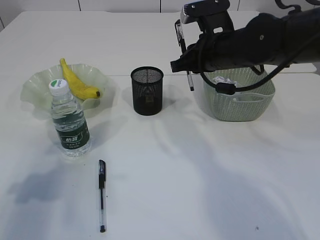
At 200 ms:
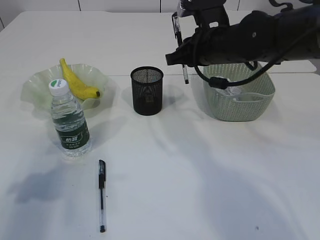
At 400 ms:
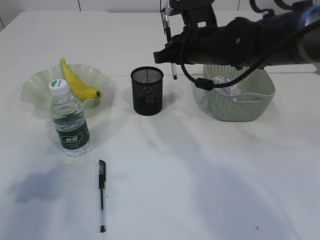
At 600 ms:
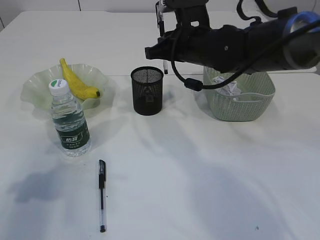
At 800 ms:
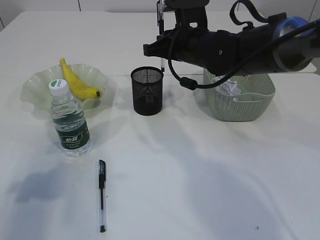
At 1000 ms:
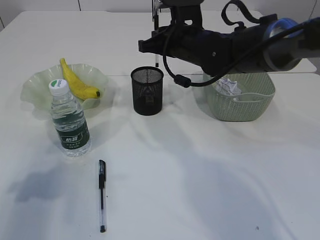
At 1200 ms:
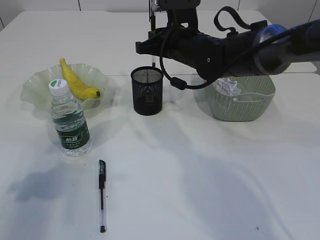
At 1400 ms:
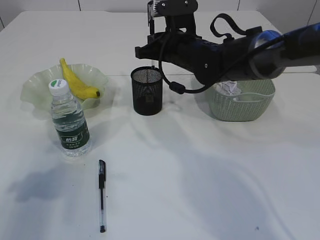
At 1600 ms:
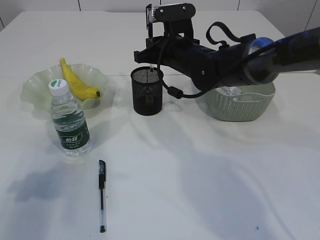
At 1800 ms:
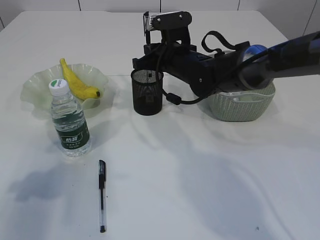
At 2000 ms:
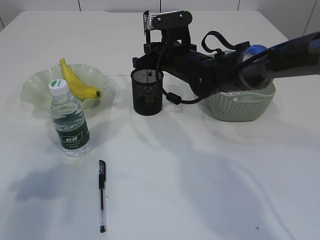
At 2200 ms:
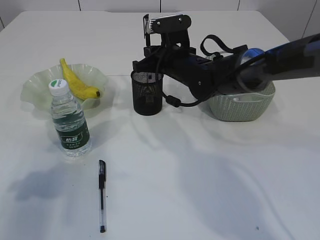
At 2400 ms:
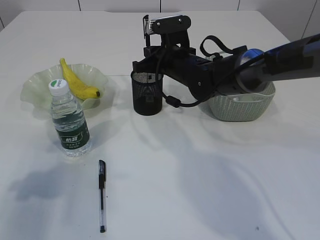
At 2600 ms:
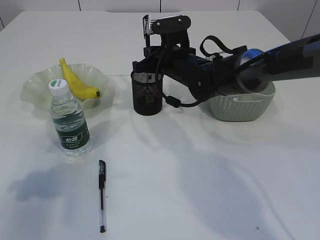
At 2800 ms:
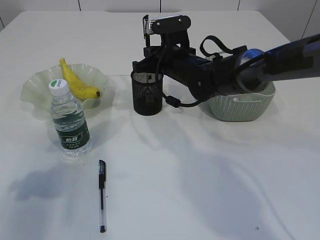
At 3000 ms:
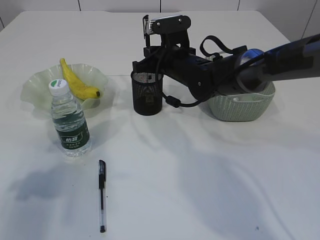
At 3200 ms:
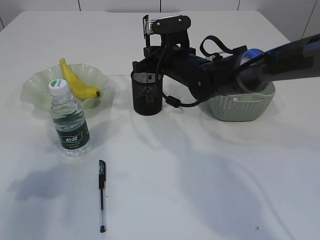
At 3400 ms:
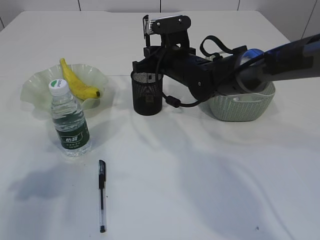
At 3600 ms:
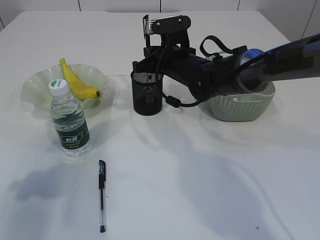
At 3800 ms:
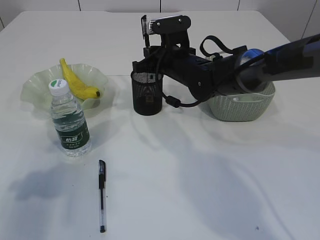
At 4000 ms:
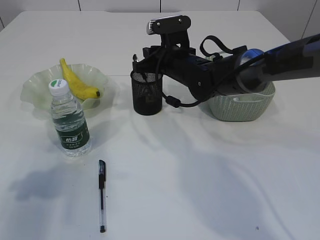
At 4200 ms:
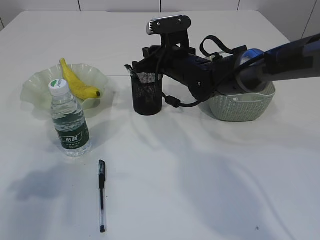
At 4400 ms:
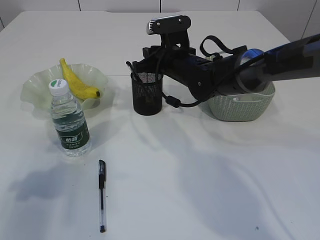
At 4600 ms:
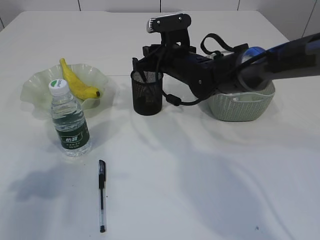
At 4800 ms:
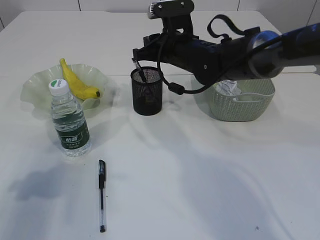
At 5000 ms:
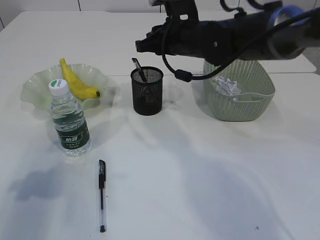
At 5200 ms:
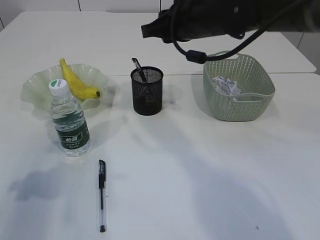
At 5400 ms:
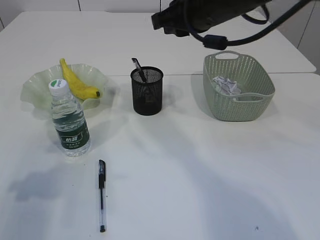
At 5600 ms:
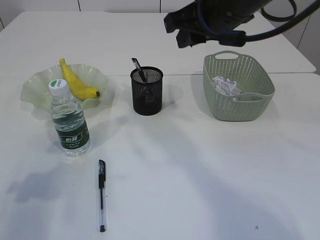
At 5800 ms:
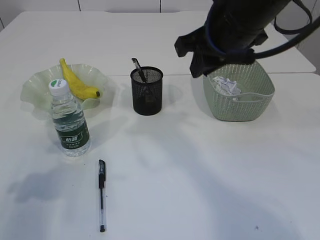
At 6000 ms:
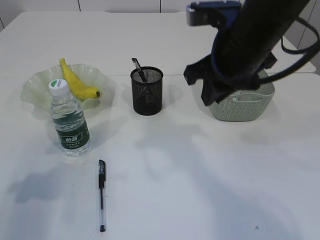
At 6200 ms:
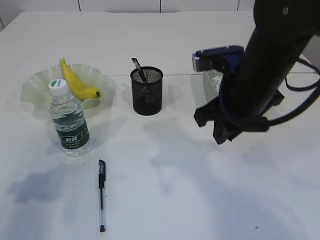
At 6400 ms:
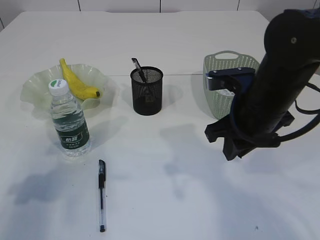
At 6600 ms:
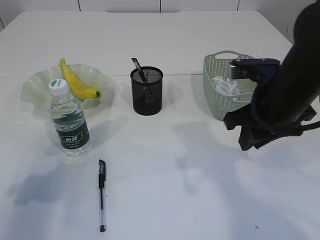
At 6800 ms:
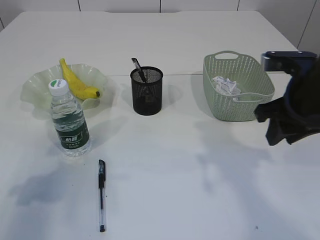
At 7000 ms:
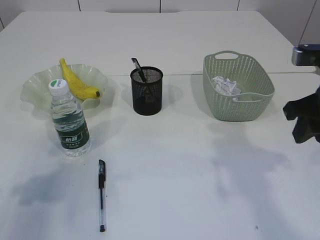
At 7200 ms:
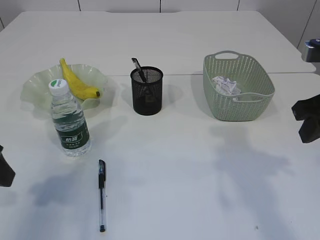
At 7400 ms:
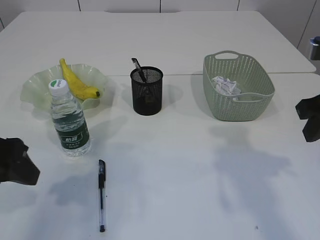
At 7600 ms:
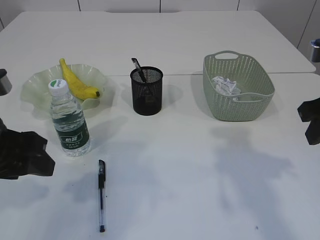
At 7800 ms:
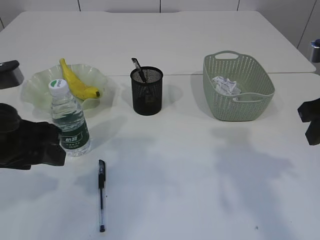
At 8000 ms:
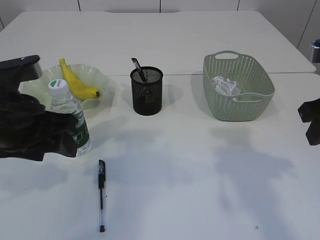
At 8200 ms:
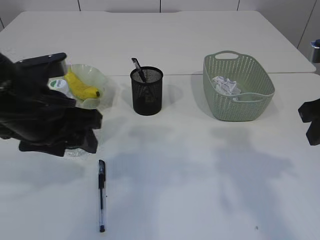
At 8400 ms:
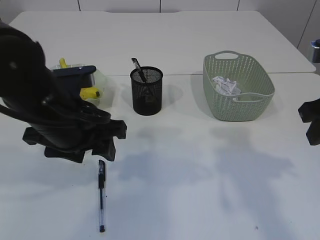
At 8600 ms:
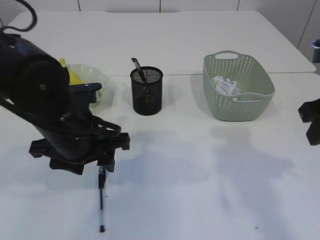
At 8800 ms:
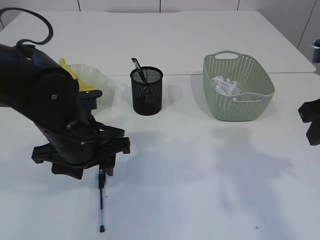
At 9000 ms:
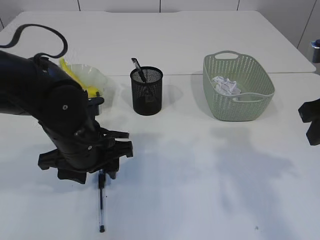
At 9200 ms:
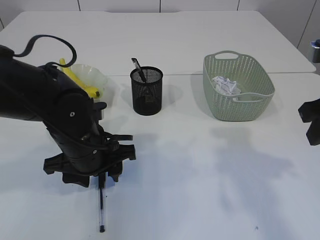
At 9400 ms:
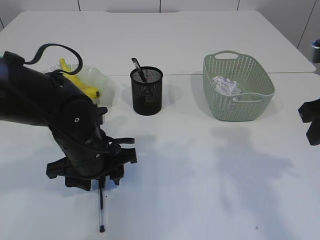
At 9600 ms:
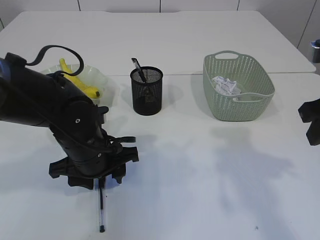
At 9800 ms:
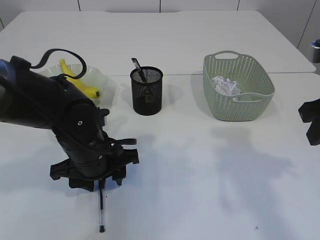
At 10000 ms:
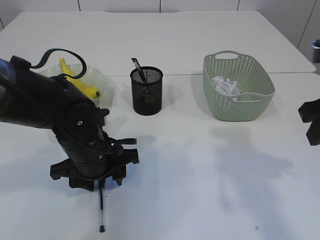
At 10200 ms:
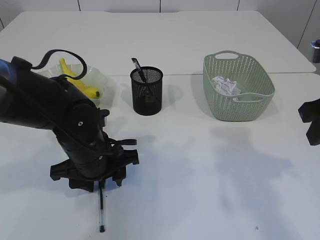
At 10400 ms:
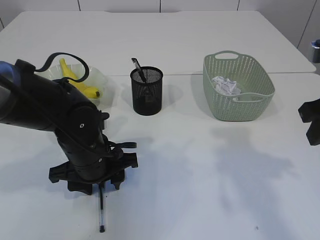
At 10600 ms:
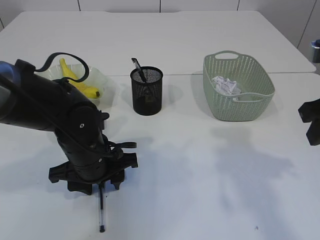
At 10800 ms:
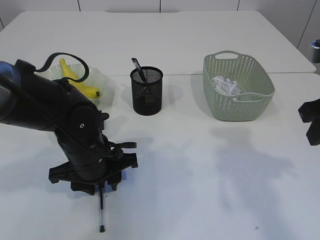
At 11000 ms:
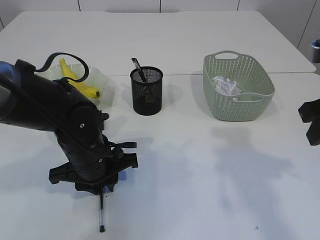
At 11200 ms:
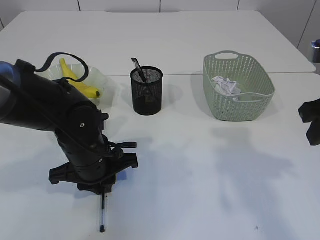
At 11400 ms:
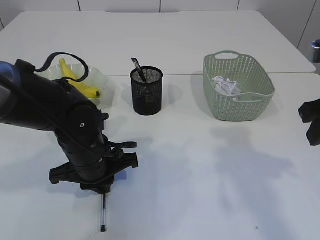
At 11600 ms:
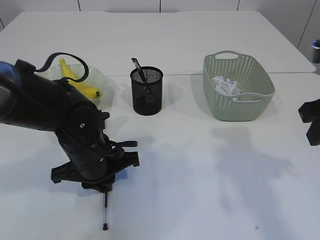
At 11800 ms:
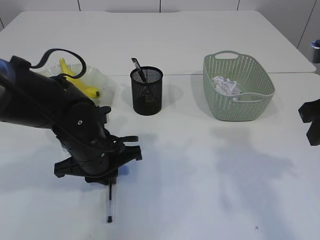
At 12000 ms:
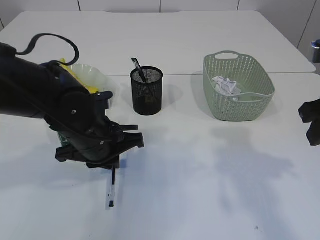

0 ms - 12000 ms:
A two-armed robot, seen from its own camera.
Step, 0 ms - 5000 ms: Place the pen into the pen holder.
0 ms - 1600 ms: The right gripper moves to the left and forward, roughly 10 cm.
1600 ms - 3000 ms: The grippers move only a little.
3000 ms - 4400 ms: Neither gripper changes place.
4400 ms - 6000 ms: The right gripper travels backward, upward and to the right by approximately 20 cm.
6000 ms - 7600 ms: The right gripper shifts approximately 15 cm to the right and backward; the left gripper goes about 10 cm to the right.
7600 ms - 9000 ms: The left gripper shifts roughly 15 cm to the right, downward and forward.
9000 ms - 10400 ms: The grippers stay close to where they were, moving slightly.
10400 ms - 12000 ms: The left gripper closes up.

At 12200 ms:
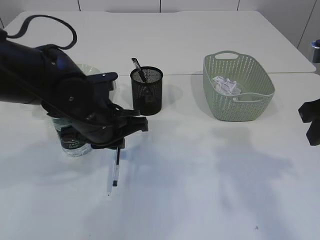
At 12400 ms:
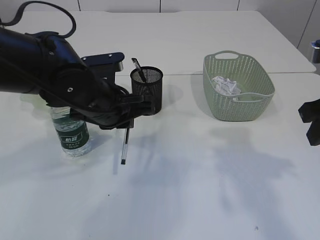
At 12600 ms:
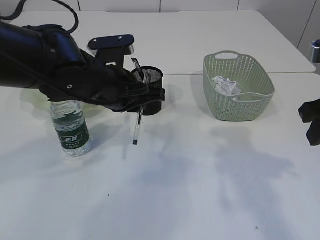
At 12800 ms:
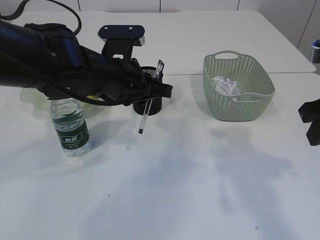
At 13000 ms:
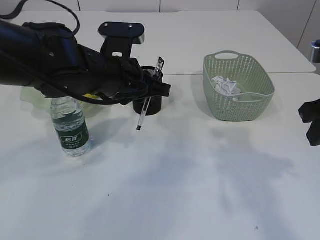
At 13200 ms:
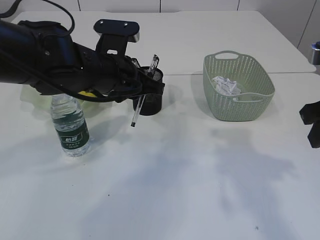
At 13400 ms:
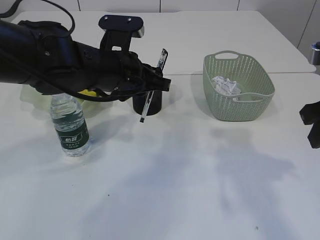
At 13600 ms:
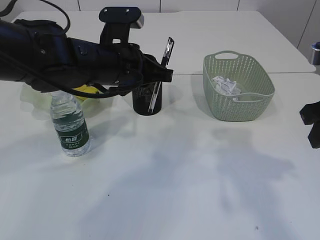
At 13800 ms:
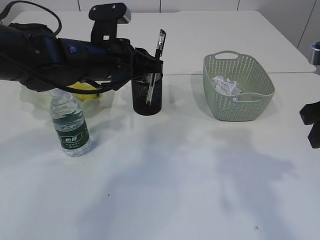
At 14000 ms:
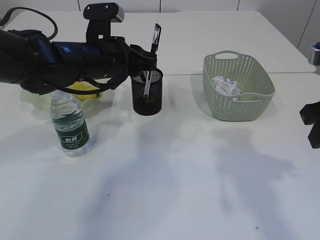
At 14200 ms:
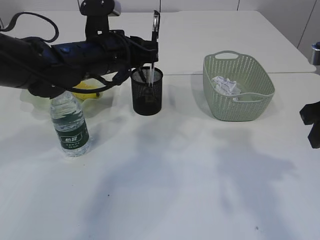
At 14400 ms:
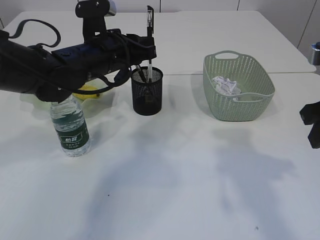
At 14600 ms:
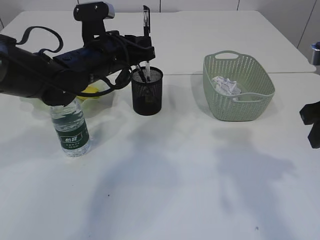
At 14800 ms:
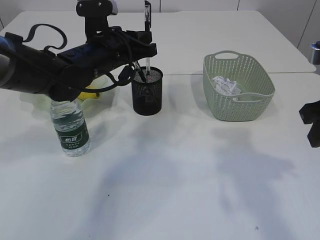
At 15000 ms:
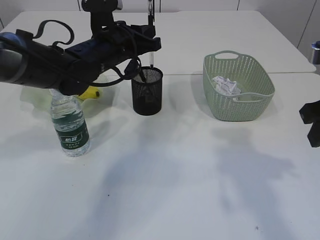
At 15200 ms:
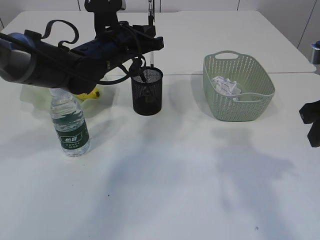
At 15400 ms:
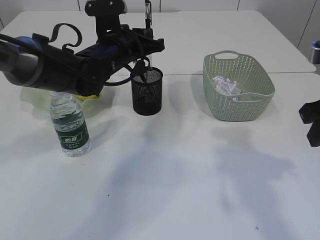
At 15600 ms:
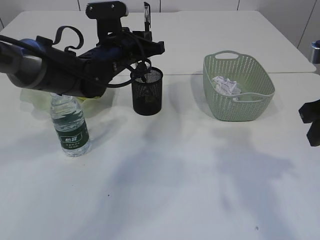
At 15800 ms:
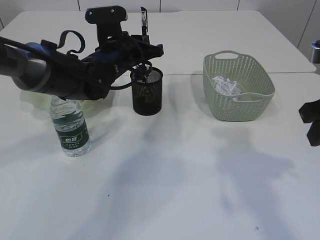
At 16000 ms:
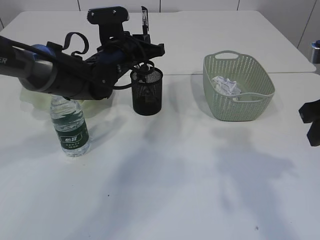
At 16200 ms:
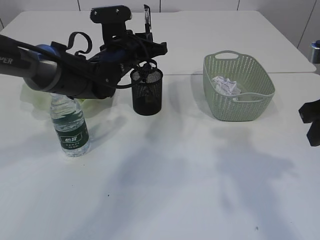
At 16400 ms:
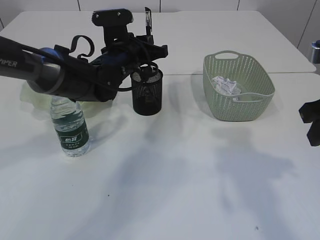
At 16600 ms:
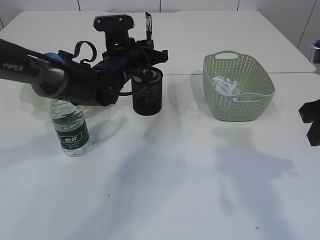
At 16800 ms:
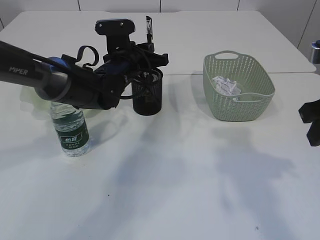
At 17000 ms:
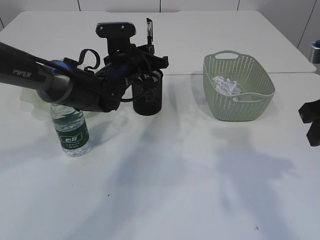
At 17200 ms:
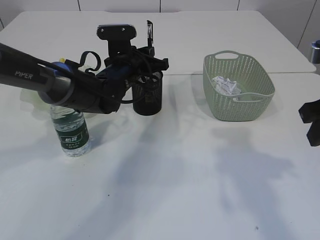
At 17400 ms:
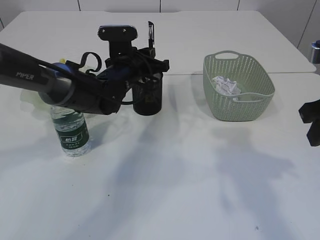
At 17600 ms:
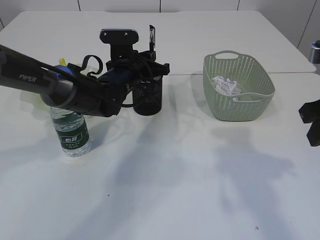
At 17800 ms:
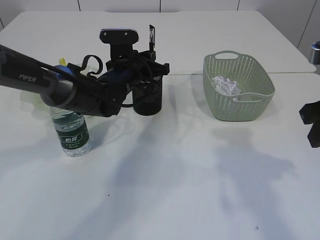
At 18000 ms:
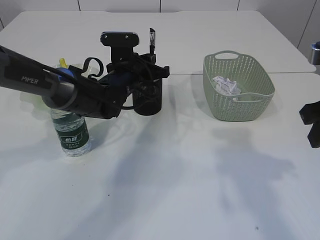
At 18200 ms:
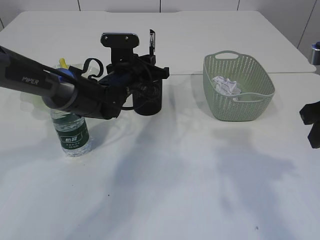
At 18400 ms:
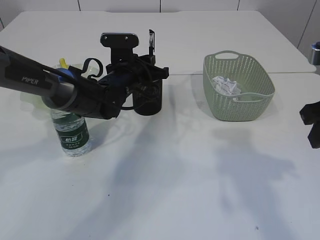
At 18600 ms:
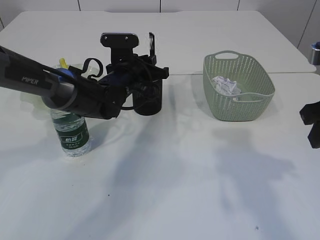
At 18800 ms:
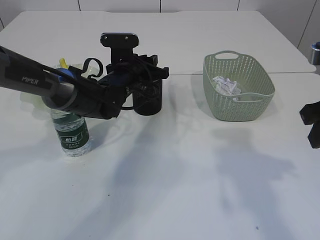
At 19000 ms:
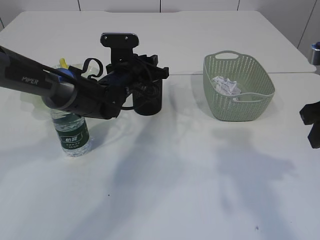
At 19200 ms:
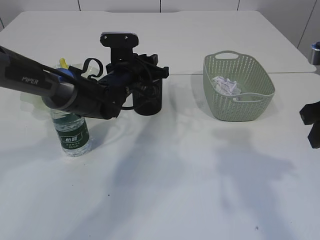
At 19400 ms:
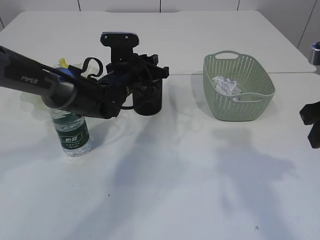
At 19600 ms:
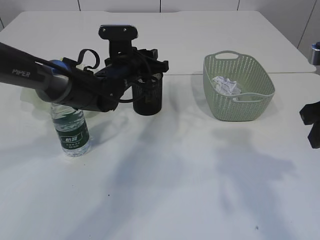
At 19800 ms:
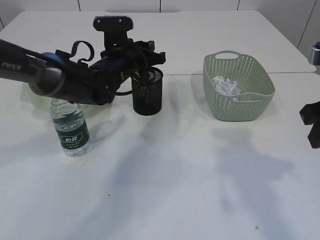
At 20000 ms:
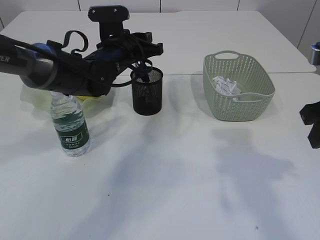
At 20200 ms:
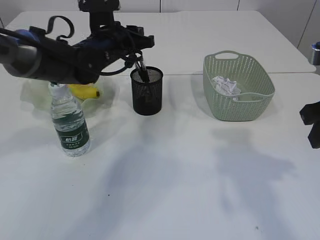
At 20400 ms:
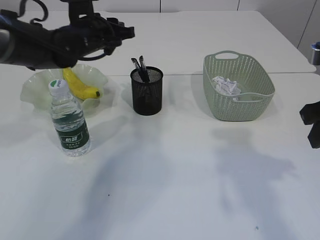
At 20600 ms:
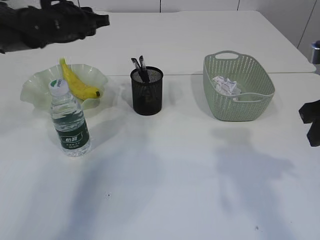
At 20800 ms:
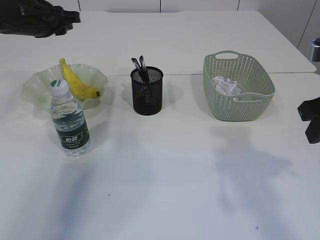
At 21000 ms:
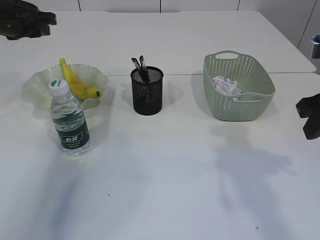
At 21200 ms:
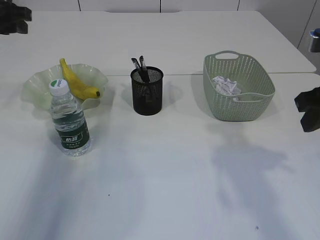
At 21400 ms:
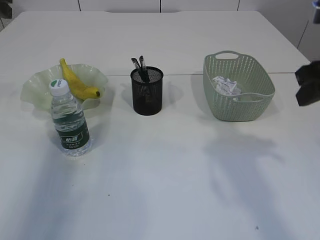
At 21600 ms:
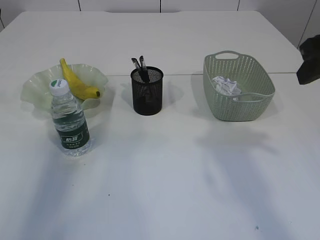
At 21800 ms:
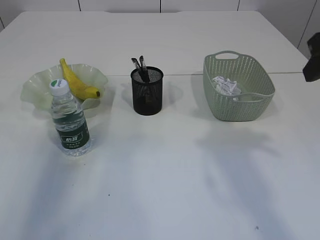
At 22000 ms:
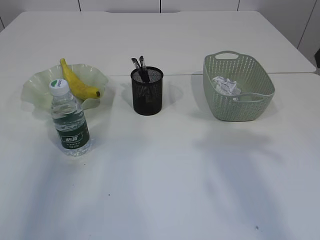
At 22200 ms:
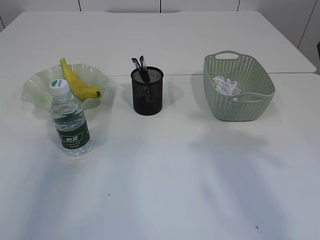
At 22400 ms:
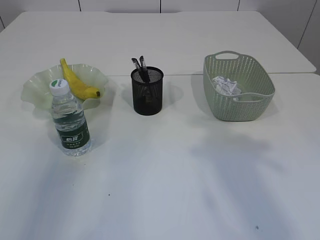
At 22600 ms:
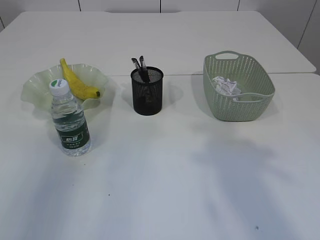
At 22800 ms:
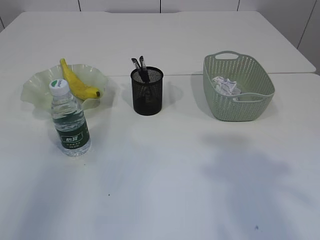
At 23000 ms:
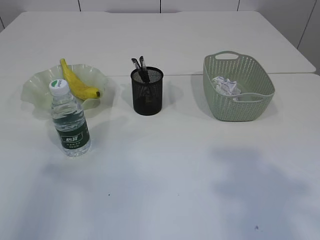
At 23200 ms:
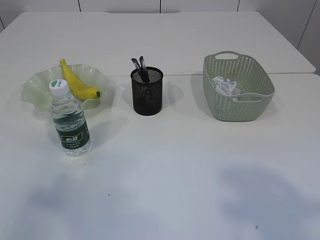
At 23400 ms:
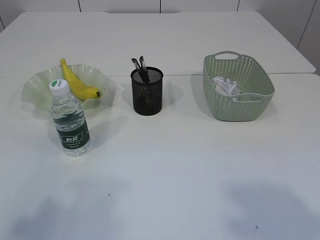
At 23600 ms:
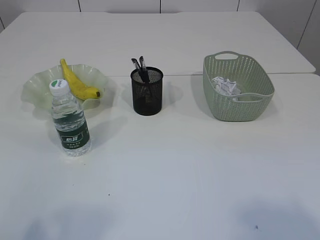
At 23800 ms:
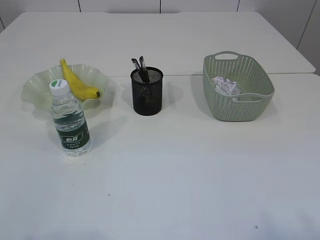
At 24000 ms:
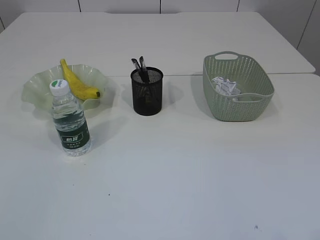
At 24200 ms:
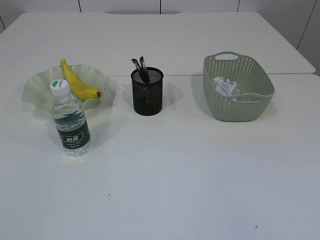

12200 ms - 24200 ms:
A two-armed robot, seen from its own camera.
Step, 12400 ms - 20000 ms: Place the pen into the pen holder.
12200 ms - 13800 ms: The left gripper moves upward and forward, about 10 cm.
13800 ms - 15200 ms: The left gripper goes roughly 5 cm forward.
15200 ms - 16600 ms: The grippers move only a little.
16600 ms - 19800 ms: The grippers make only small movements.
19800 ms - 21200 ms: The left gripper travels to the left and upward by approximately 25 cm.
21200 ms - 22600 ms: The right gripper moves upward and backward, roughly 15 cm; the left gripper travels backward and upward by some 20 cm.
22600 ms - 24200 ms: The left gripper moves backward, about 30 cm.
